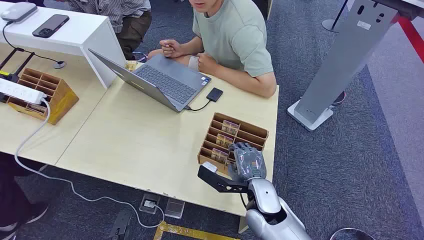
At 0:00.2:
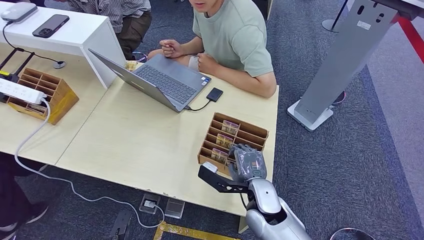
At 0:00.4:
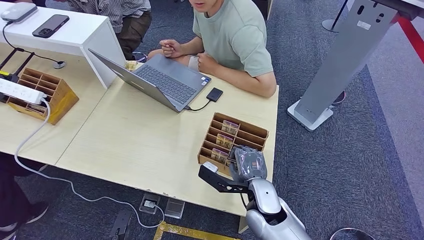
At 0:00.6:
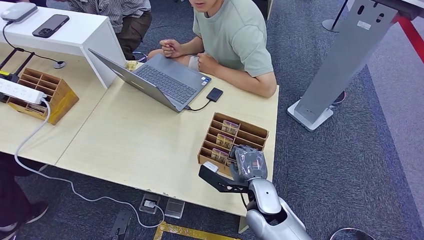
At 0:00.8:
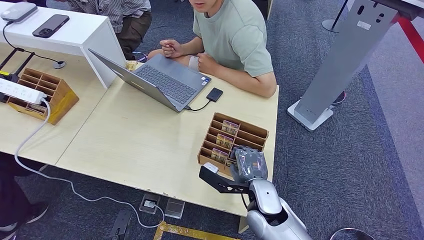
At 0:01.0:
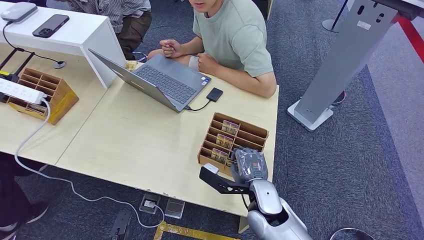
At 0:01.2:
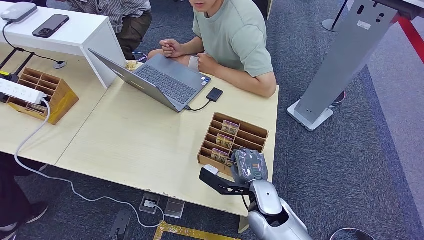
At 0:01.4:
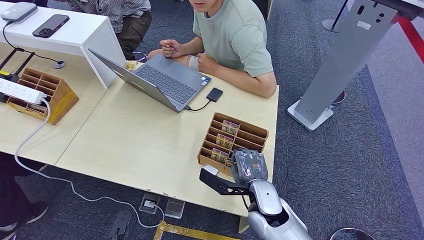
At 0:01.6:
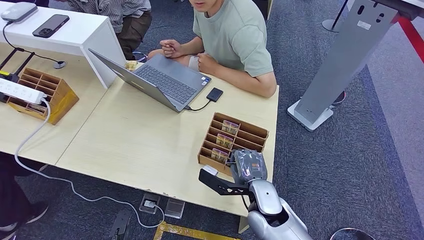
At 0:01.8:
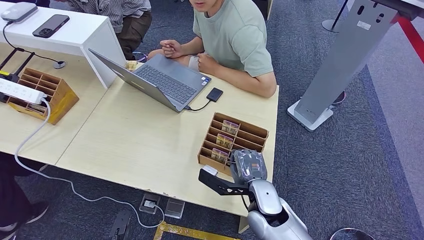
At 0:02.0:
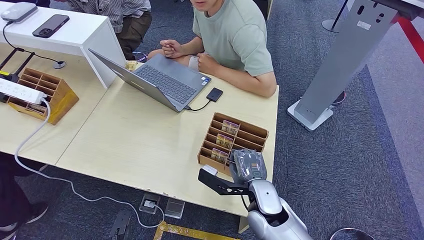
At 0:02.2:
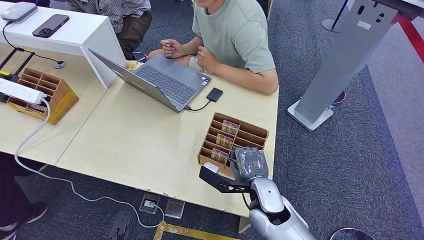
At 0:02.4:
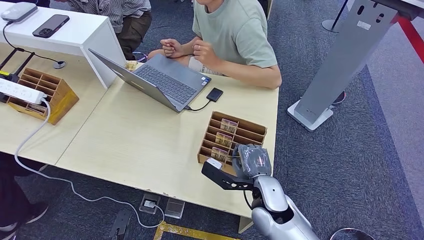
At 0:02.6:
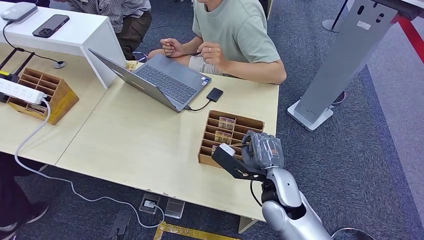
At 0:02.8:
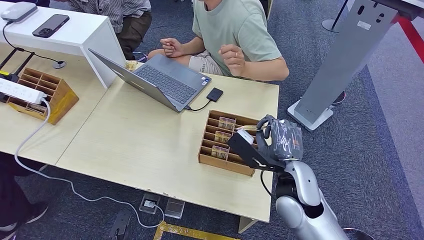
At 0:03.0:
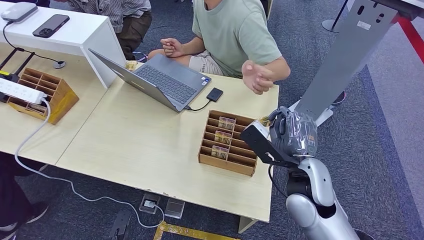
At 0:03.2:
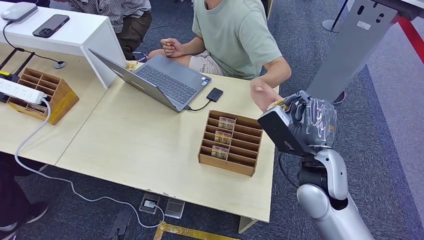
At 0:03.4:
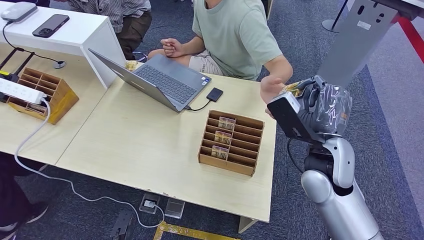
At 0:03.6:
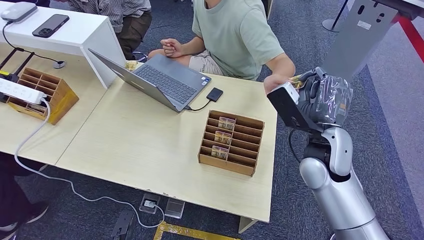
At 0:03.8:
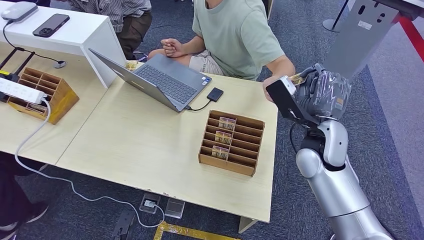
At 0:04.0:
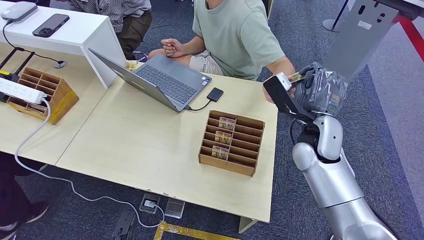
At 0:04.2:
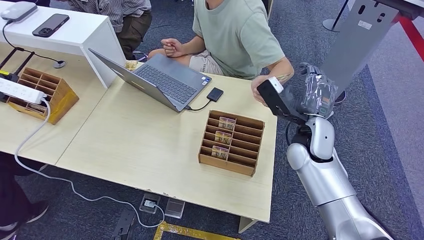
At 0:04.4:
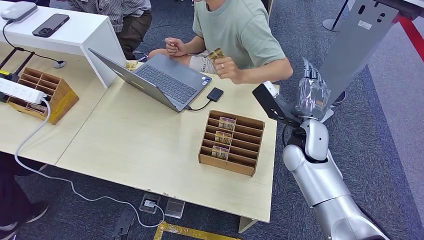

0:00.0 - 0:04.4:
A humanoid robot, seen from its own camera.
Step, 0:00.0 - 0:02.6: Pick up the key card from the card box.
Step, 0:03.4 - 0:04.4: Hand the key card to the target.
0:01.4 - 0:03.0: The right hand moves upward and to the right, approximately 15 cm.
0:03.0 - 0:04.4: The right hand shifts roughly 10 cm forward.
